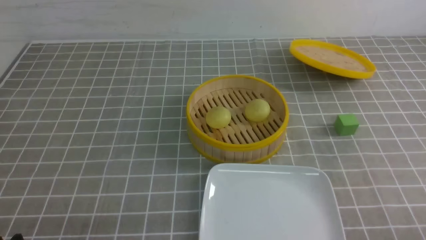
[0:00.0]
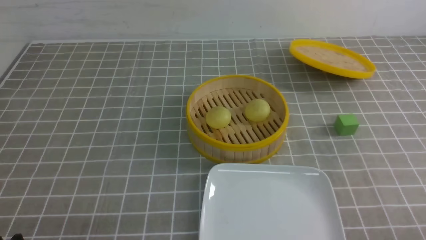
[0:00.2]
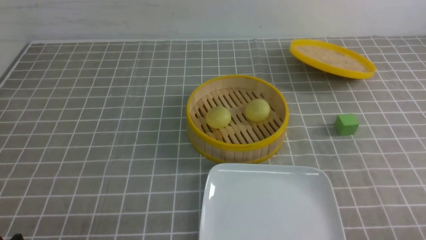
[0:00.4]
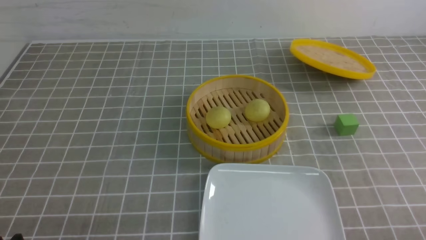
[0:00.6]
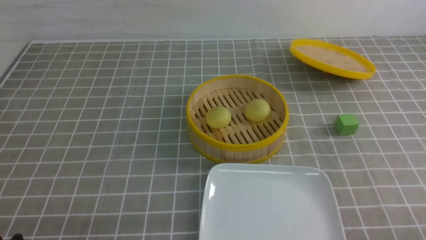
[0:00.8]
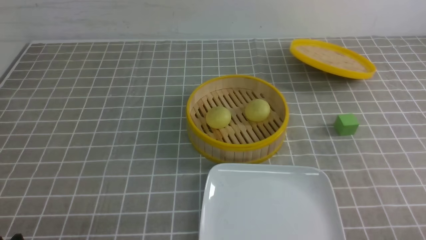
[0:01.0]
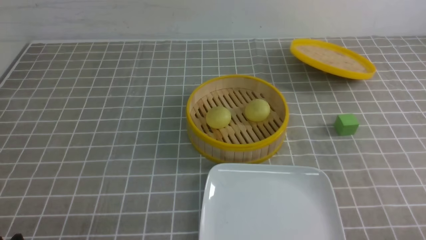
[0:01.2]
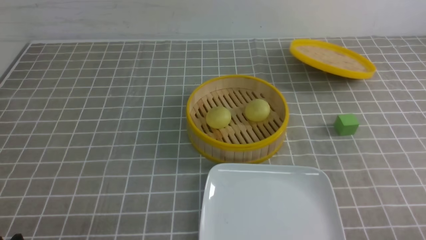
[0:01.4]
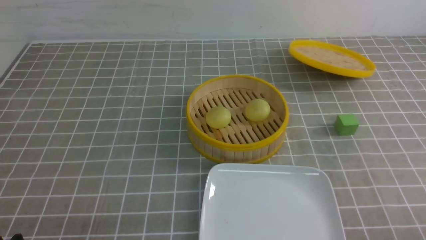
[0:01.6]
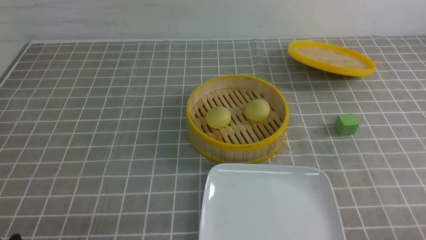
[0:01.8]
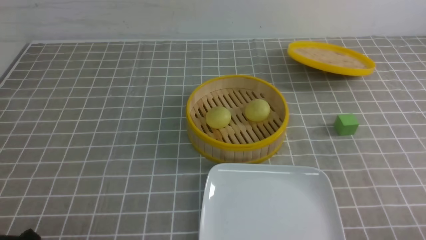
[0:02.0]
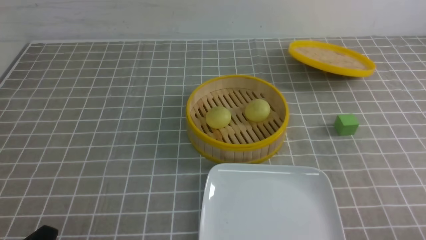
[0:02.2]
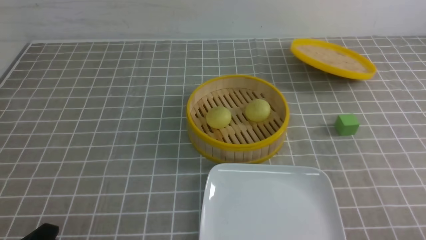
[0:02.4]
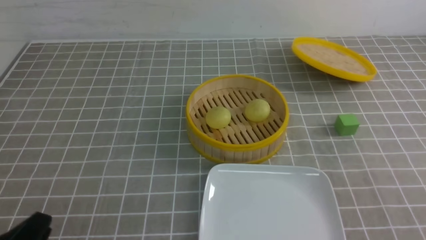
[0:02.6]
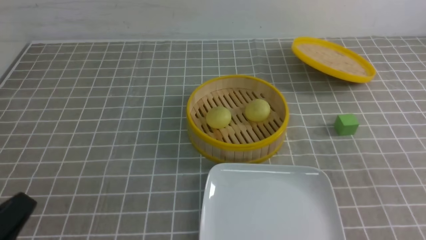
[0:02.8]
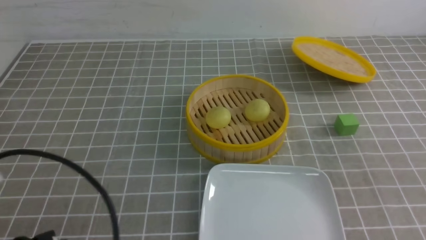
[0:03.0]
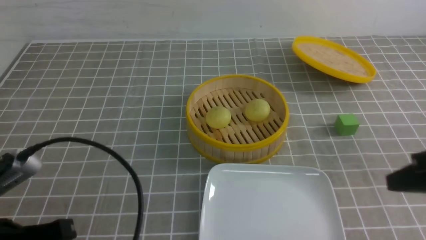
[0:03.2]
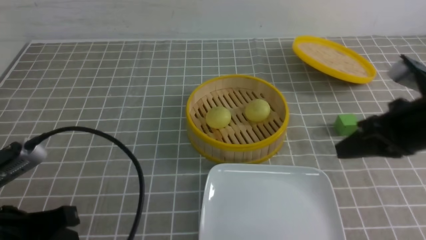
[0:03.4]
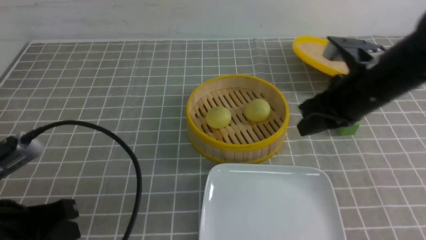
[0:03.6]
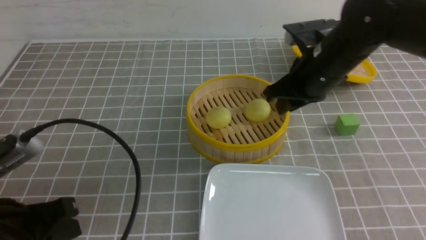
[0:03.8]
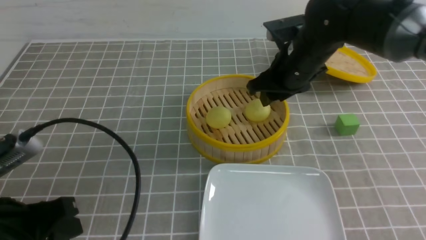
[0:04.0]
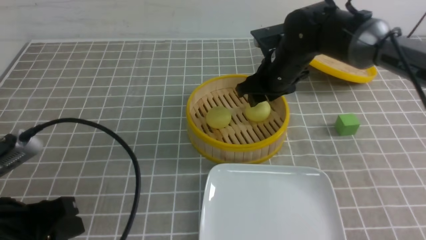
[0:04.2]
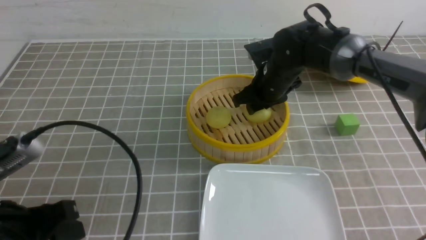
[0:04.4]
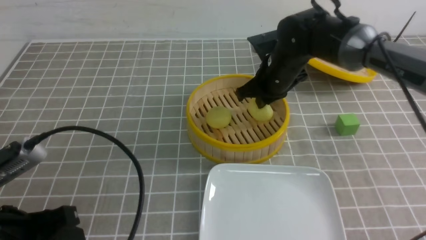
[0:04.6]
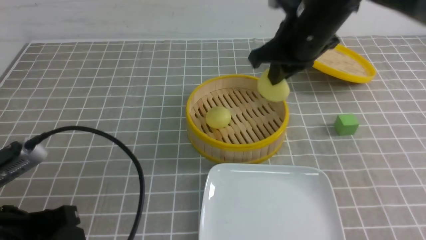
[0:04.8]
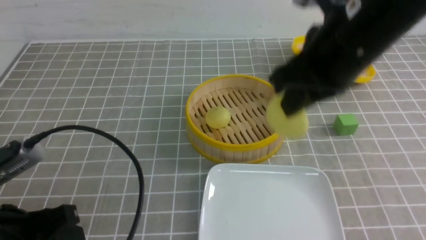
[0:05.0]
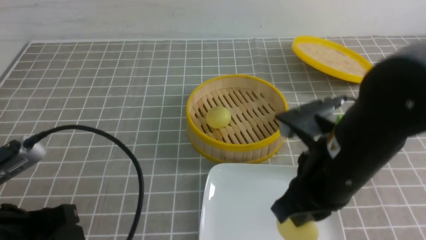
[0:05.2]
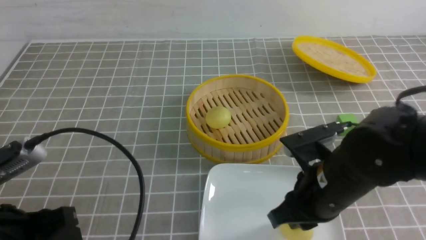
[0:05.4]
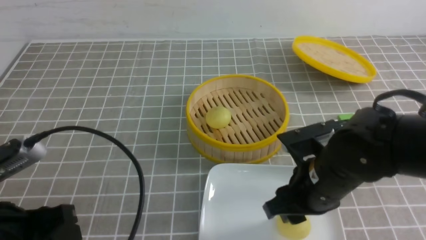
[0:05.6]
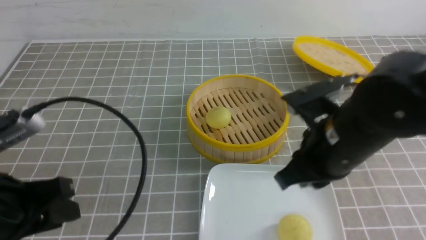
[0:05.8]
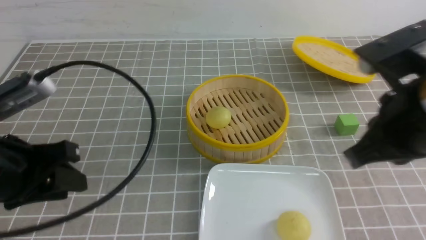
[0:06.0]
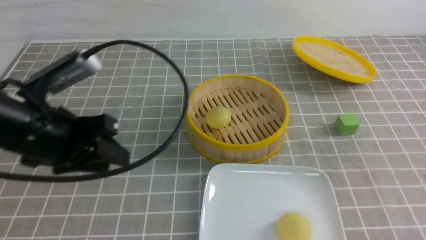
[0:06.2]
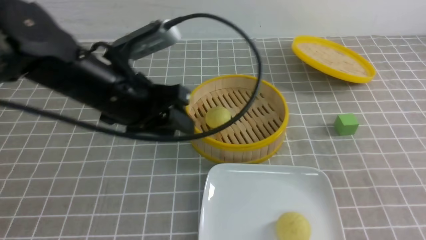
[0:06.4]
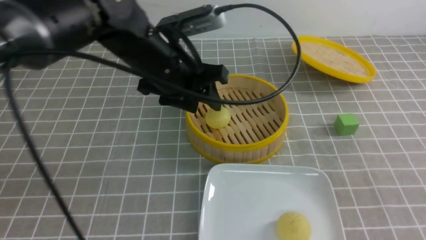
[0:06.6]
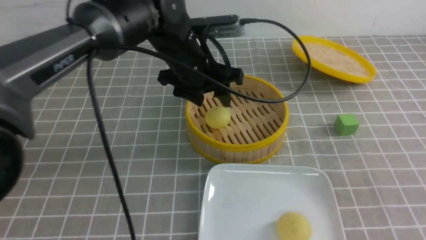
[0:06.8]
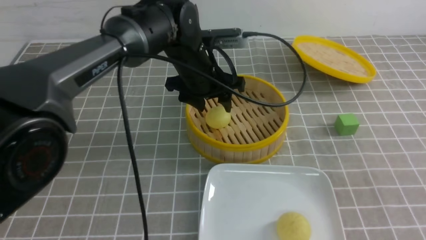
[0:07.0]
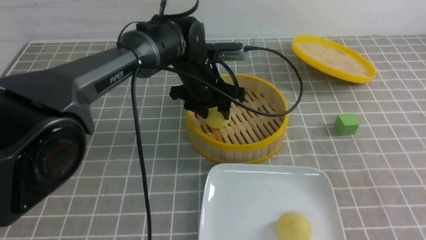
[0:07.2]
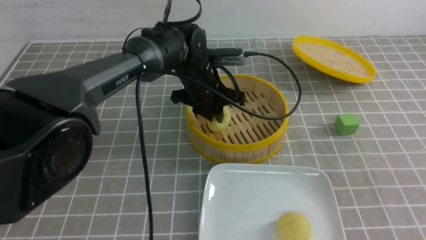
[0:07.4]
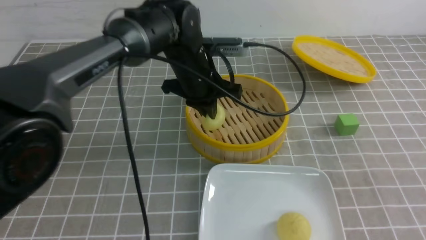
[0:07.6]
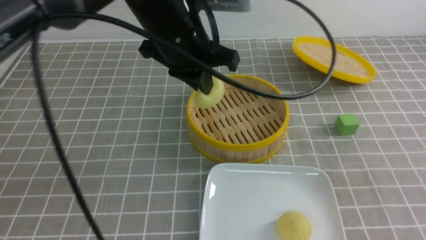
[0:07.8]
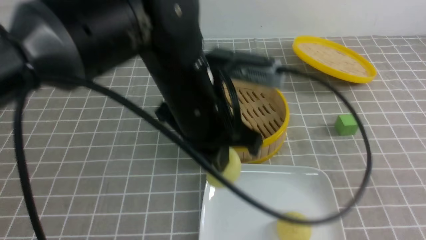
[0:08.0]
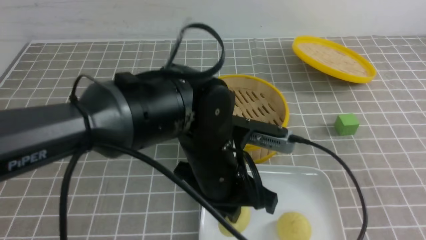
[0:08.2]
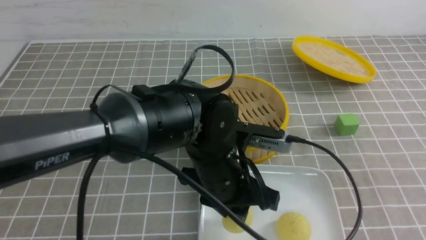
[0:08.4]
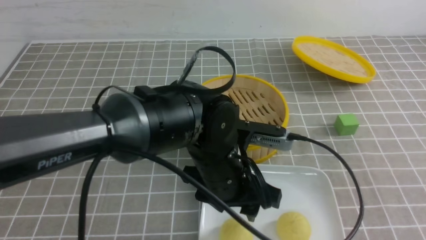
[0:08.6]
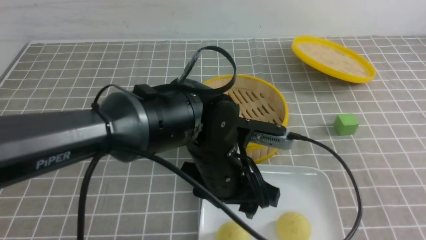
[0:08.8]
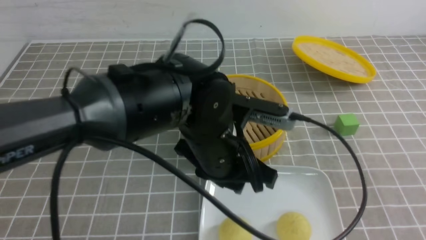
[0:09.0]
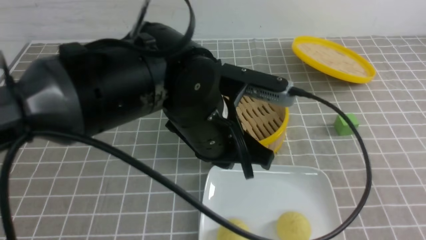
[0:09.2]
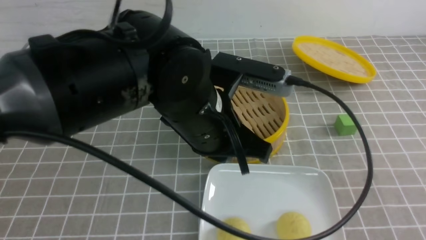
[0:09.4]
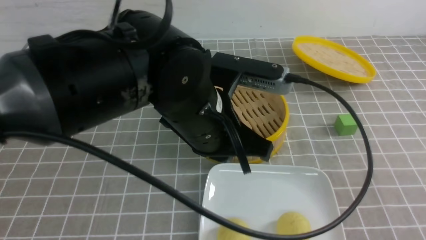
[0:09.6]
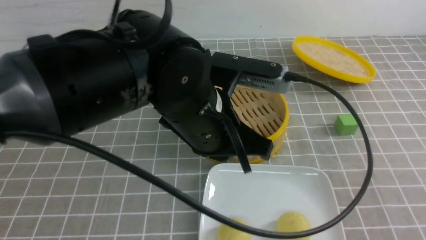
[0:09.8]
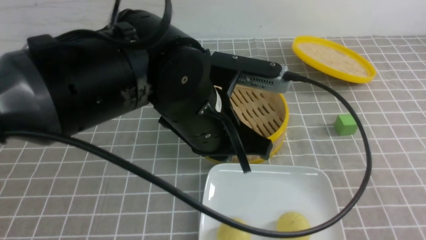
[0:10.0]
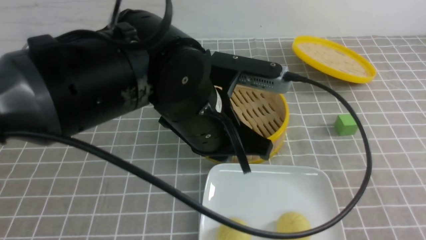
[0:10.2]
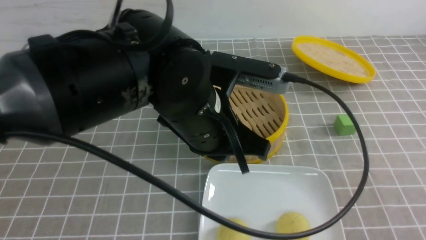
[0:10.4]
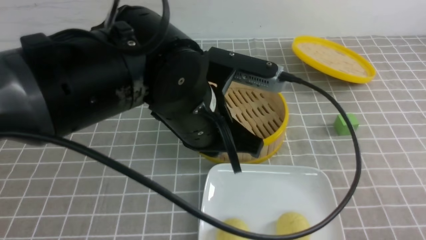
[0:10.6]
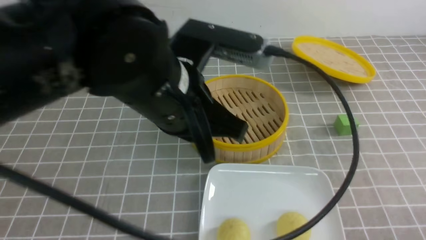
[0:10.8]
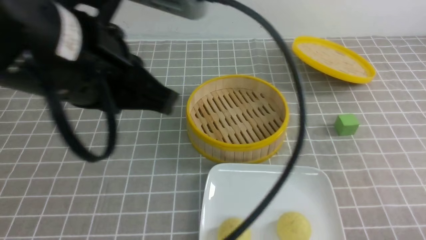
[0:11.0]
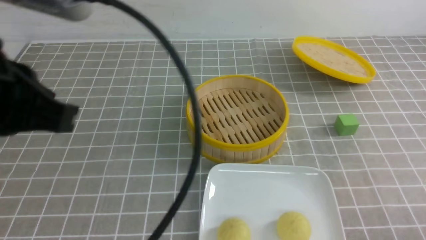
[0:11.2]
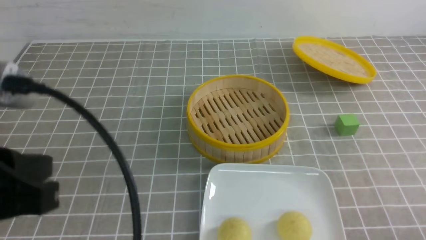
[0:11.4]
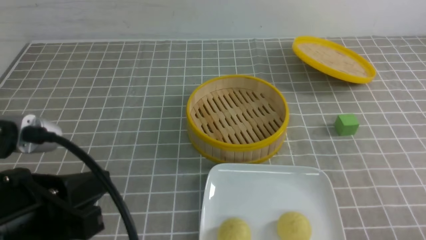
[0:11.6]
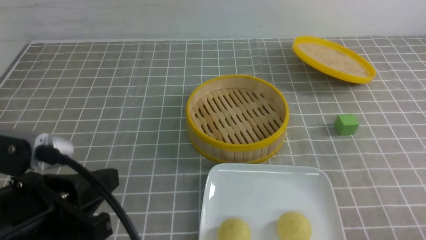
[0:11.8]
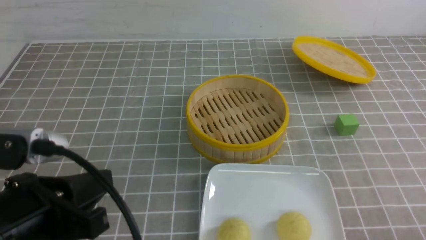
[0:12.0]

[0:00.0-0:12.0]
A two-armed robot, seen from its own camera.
Step, 0:00.0 to 0:04.4: use the right arm to grab the steamed stuffed bun that is closest to it.
Step, 0:04.8 to 0:05.6: use the right arm to put the steamed stuffed bun into the plate.
Step, 0:05.8 to 0:07.4: use the left arm to grab the steamed stuffed bun that is closest to it.
Step, 0:07.6 to 0:08.6: use the left arm to put the steamed stuffed bun into the plate.
0:00.0 to 0:01.6: Both grippers stay about where they are.
0:01.6 to 0:03.0: The left gripper heads upward, covering about 10 cm, and closes.
0:03.0 to 0:04.4: The right gripper is displaced forward and to the left by about 35 cm, and opens up; the left gripper opens up.
0:04.4 to 0:06.0: The left gripper goes roughly 5 cm forward; the right gripper heads backward and upward, covering about 30 cm, and closes up.
0:06.0 to 0:07.6: The left gripper travels forward and to the right by approximately 25 cm, and closes up, while the right gripper goes approximately 15 cm backward and to the right.
0:07.6 to 0:09.0: The right gripper heads backward, covering roughly 5 cm; the left gripper shifts roughly 15 cm backward, and opens.
0:09.0 to 0:10.4: The left gripper moves approximately 5 cm, and closes. The right gripper shifts approximately 5 cm downward.
0:10.4 to 0:12.0: The left gripper goes about 20 cm to the left and backward, while the right gripper goes approximately 5 cm downward.

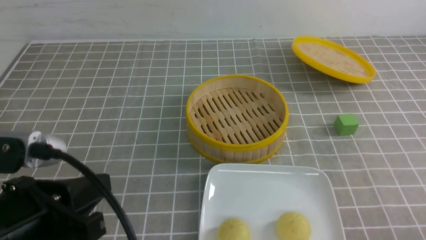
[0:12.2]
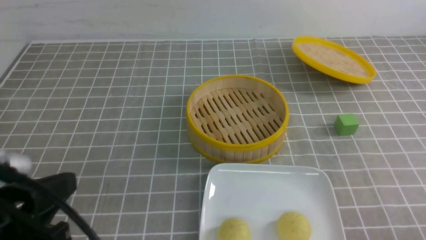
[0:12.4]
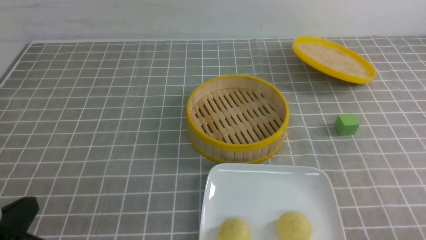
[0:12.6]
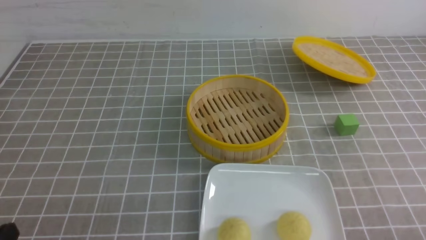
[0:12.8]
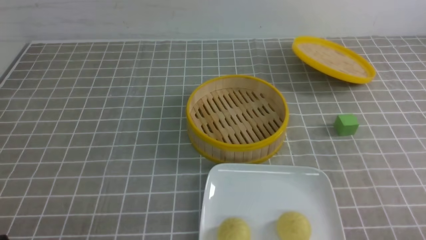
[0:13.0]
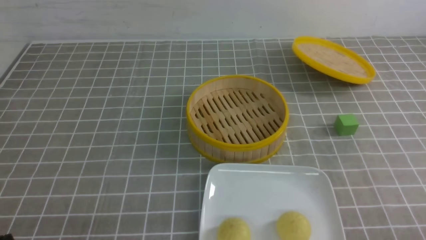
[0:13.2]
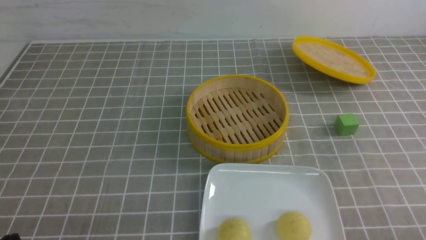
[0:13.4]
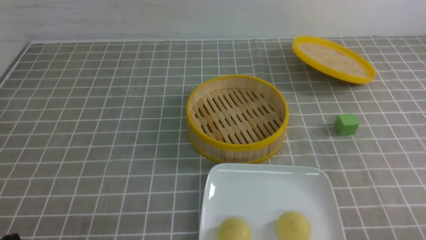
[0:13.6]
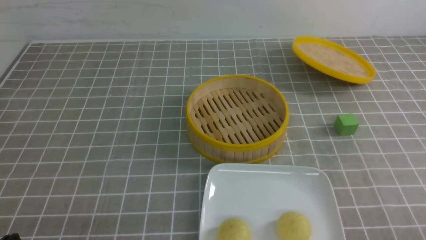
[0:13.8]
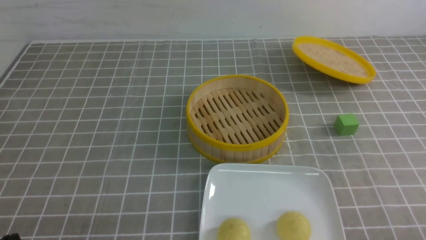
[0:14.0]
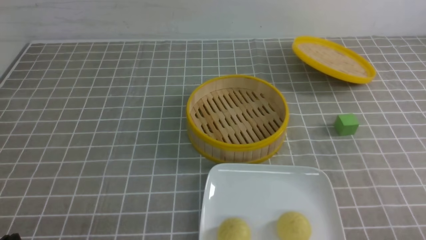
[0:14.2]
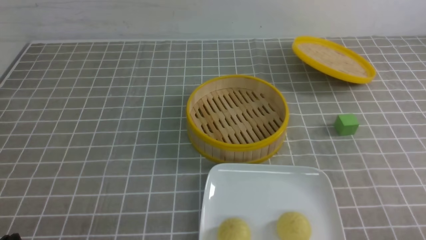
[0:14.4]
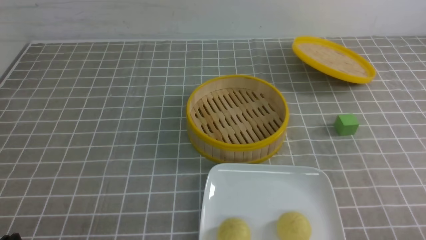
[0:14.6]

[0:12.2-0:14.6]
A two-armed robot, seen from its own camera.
0:12.2 to 0:13.4: The left gripper shifts some 15 cm downward and to the left.
0:13.4 to 0:14.6: Both grippers stay put.

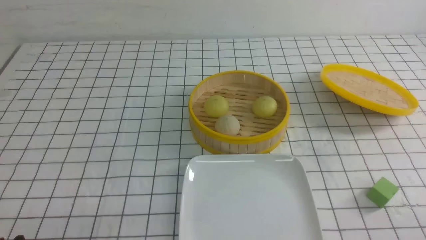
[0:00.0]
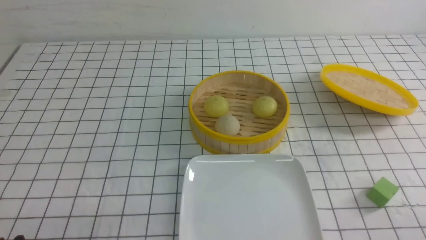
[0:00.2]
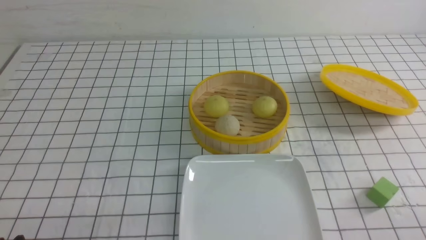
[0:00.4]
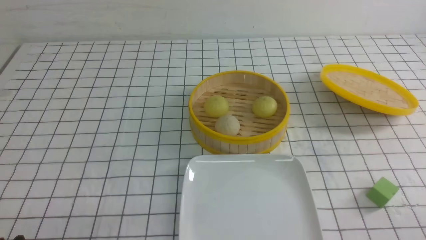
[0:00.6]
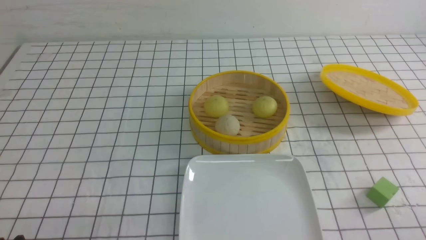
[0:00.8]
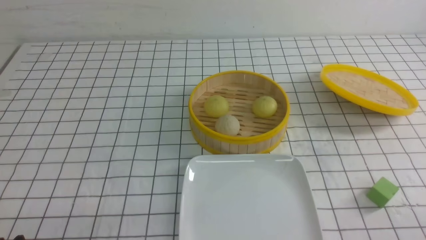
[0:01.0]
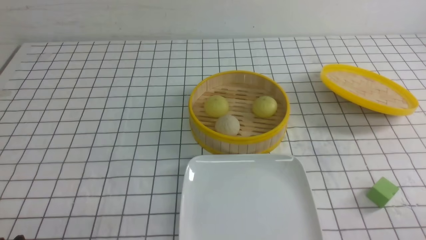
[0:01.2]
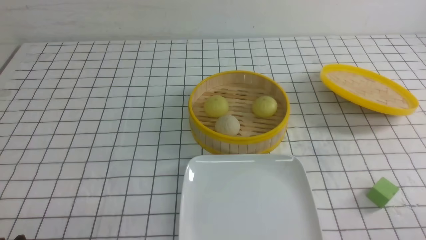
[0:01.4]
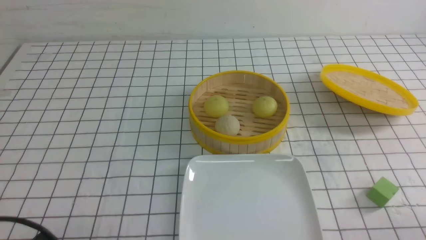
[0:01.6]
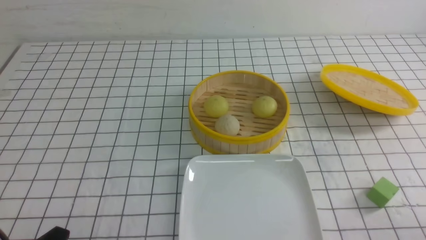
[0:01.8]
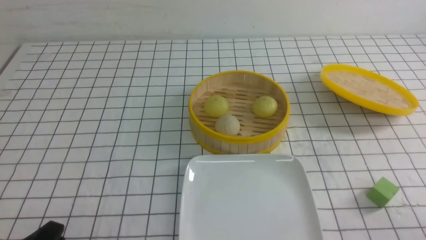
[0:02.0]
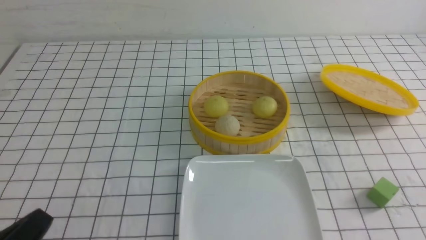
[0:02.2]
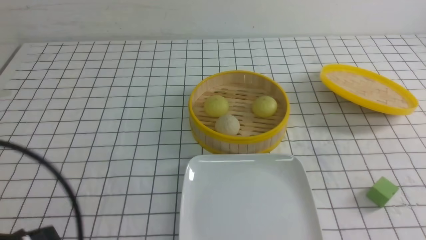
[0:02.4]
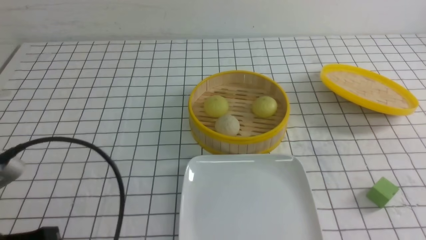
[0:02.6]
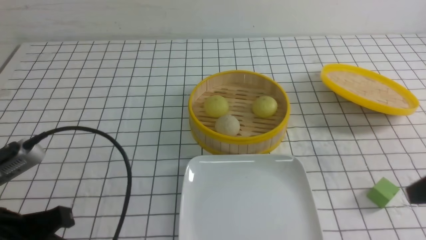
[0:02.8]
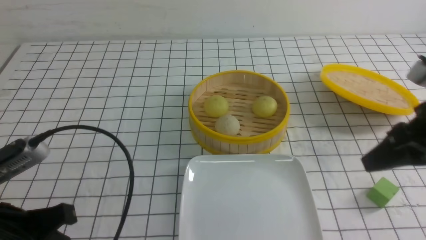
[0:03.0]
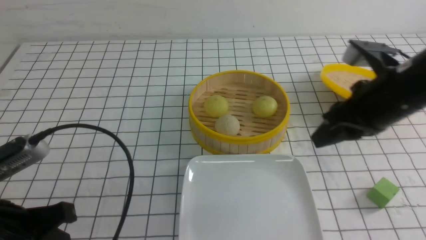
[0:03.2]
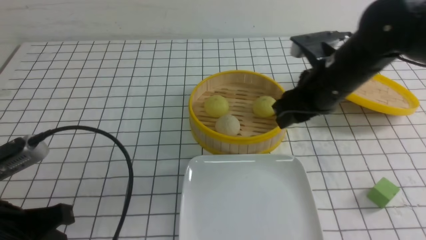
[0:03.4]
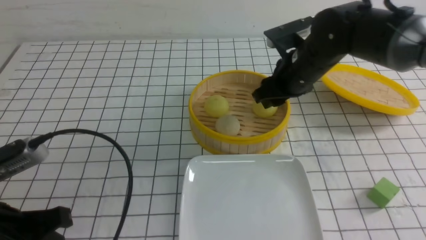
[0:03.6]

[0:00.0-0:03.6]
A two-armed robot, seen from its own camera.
0:01.8 to 0:03.6: The left gripper travels upward and forward by about 10 cm; the right gripper moves forward and to the left, roughly 40 cm, and closes and opens again.
